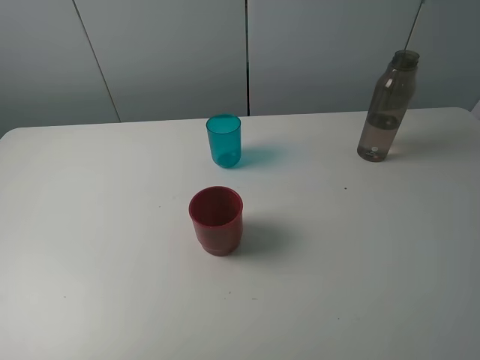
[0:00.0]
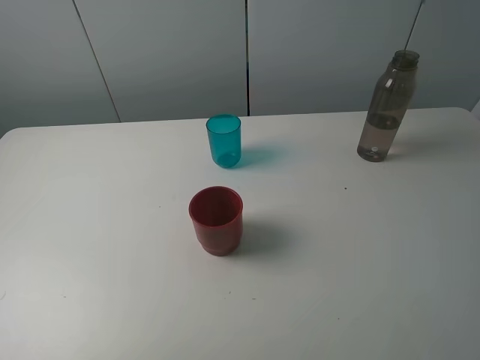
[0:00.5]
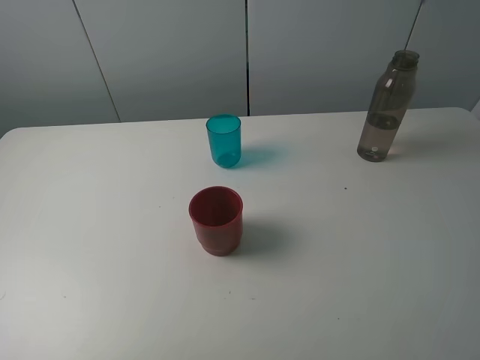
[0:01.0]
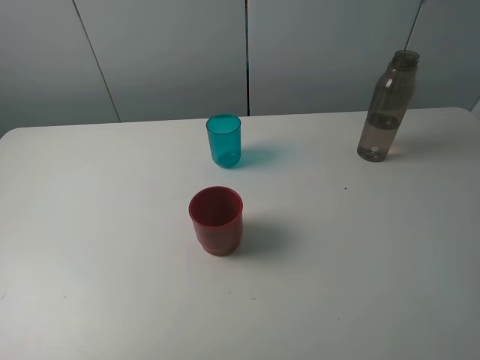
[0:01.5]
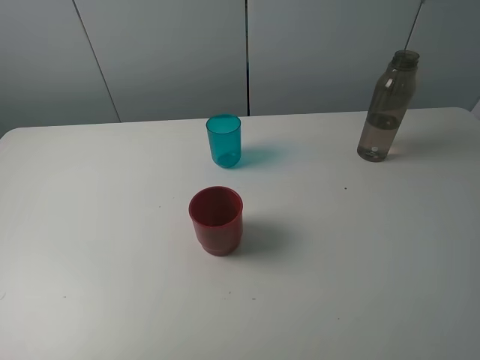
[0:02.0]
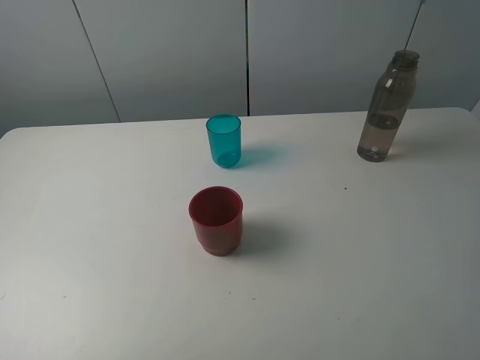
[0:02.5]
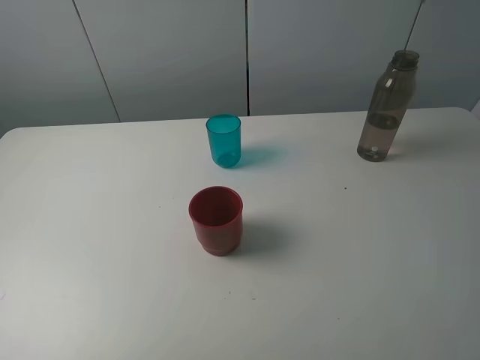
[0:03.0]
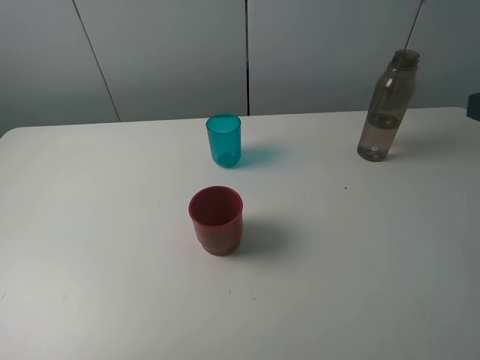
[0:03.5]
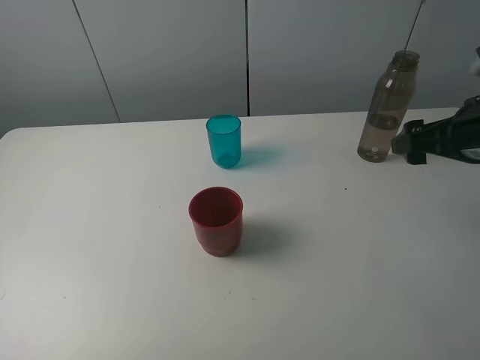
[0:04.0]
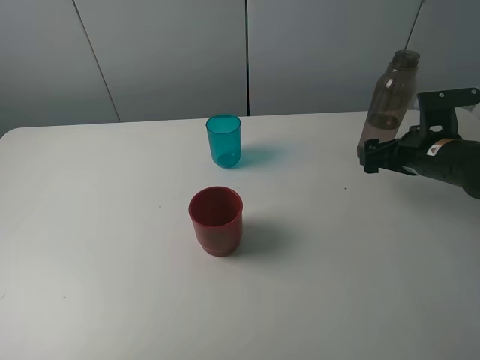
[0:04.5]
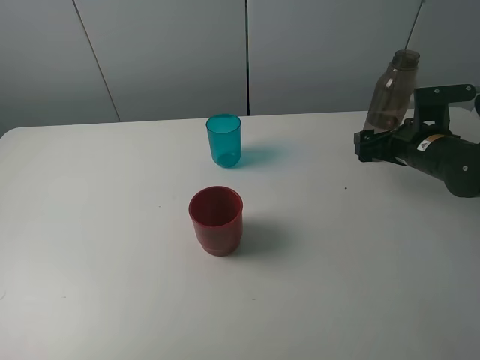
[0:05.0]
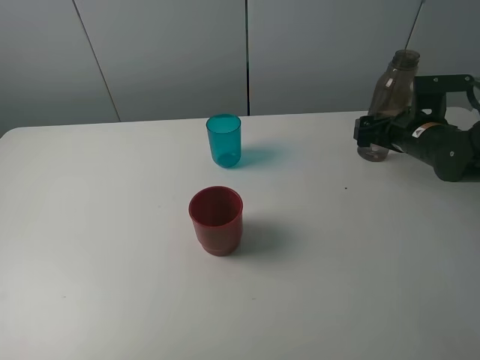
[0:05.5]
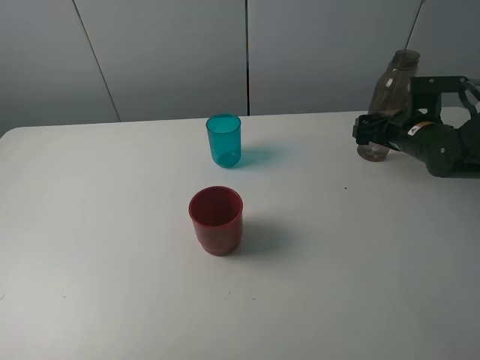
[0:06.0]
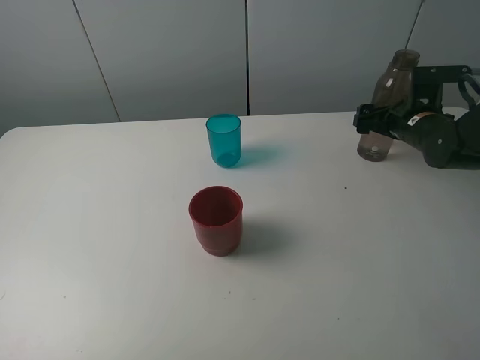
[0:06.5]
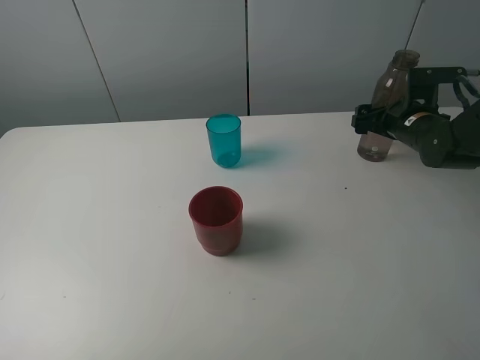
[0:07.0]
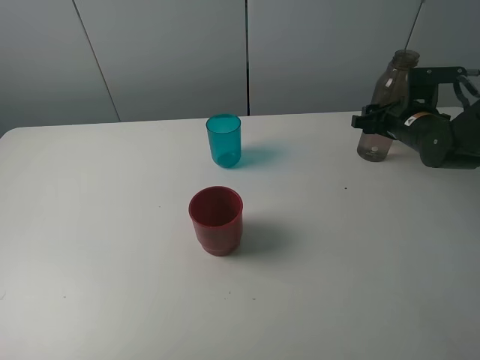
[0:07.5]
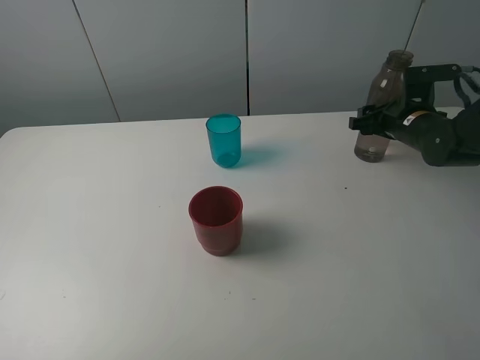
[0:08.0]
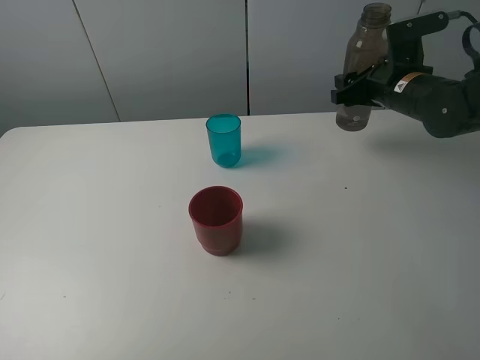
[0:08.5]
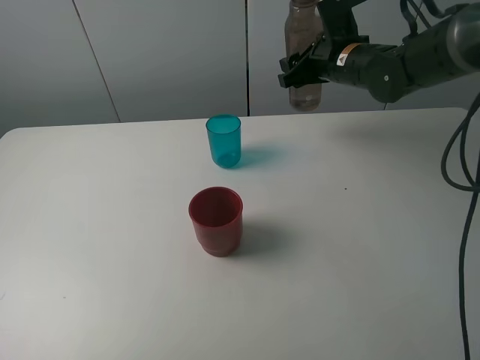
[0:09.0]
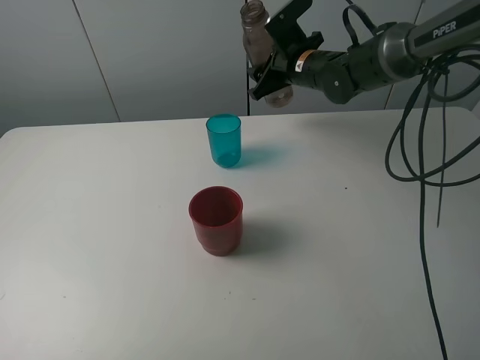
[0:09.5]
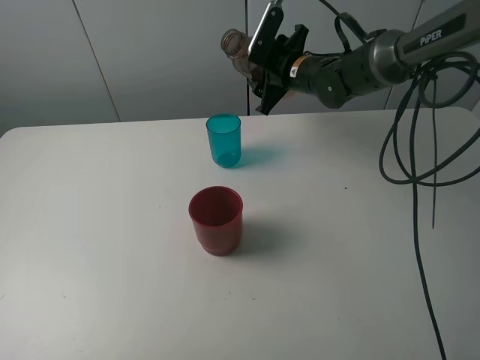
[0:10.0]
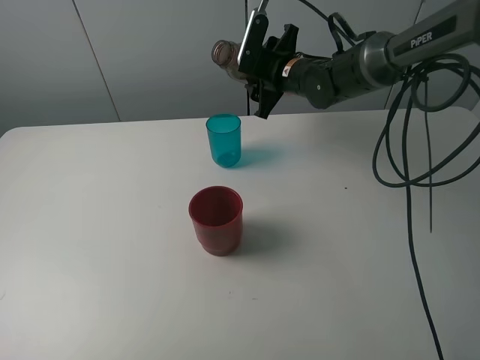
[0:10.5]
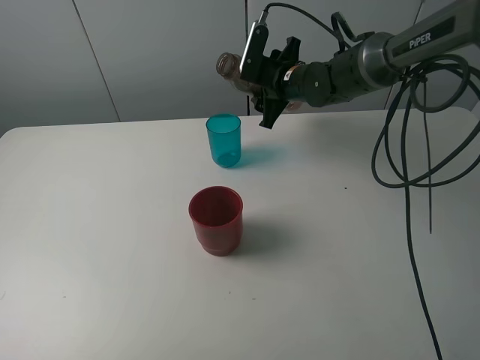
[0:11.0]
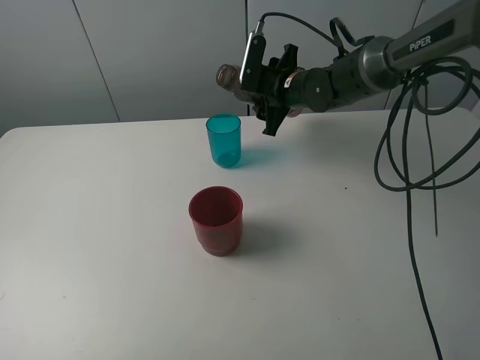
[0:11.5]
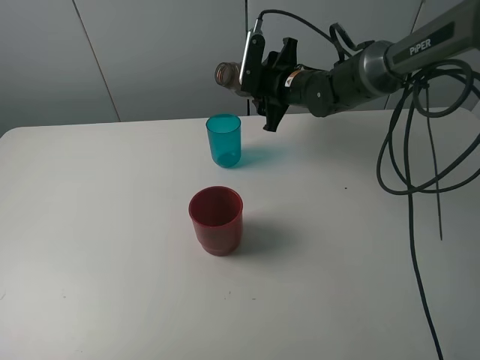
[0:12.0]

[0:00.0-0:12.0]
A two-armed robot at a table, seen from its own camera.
Task of the whole recording: pick up the bottle and pour water into the cup, then pick up the cup containing water and pour it into another cup.
Step, 0:00.0 to 0:07.5: Grasp the brown bottle with the right gripper.
0:00.0 to 0:02.0: The two grippers keep their place.
0:02.0 to 0:04.0: The right gripper heads forward, covering about 25 cm.
0:04.0 to 0:06.0: The right gripper travels forward and downward by some 15 cm.
0:06.0 to 0:08.0: The right gripper closes its fingers.
0:08.0 to 0:10.0: The right gripper is displaced to the left and forward by approximately 20 cm.
0:10.0 to 0:12.0: The grippers stay close to where they were, moving slightly.

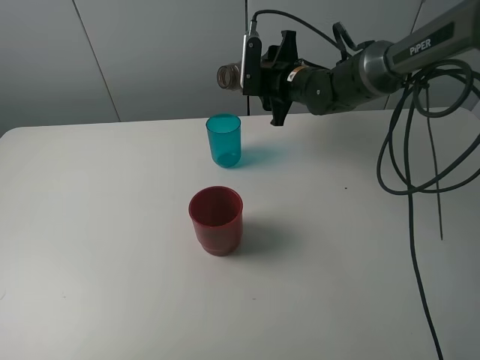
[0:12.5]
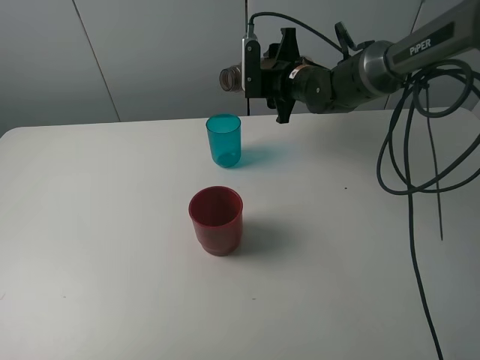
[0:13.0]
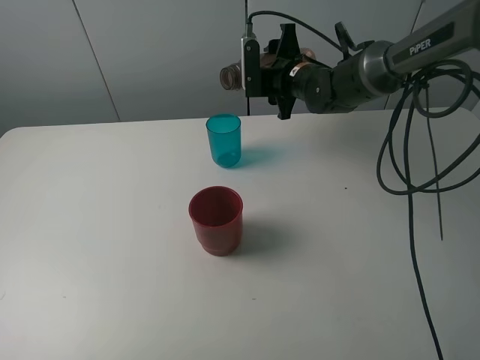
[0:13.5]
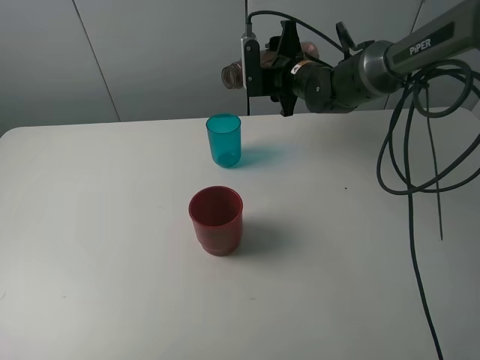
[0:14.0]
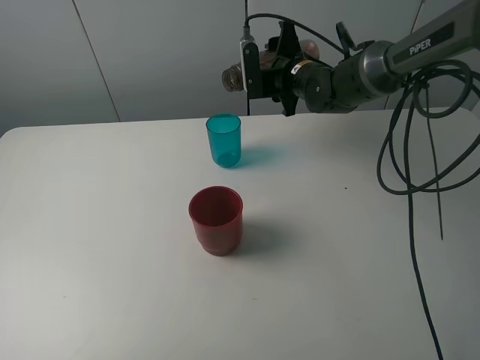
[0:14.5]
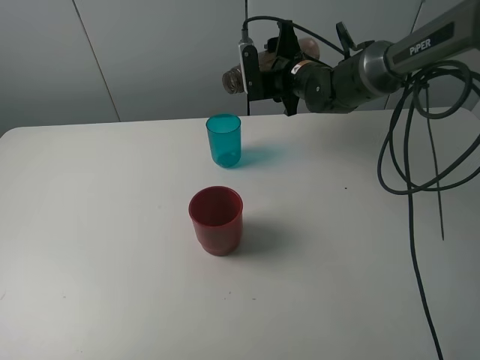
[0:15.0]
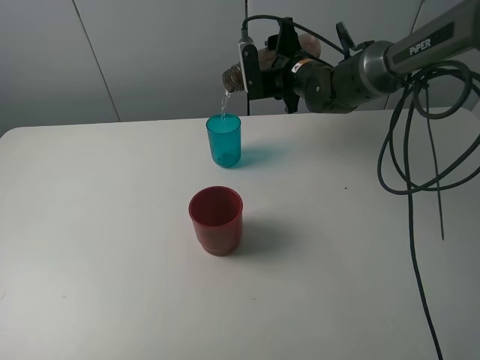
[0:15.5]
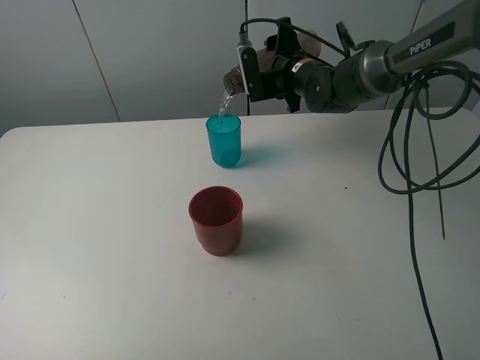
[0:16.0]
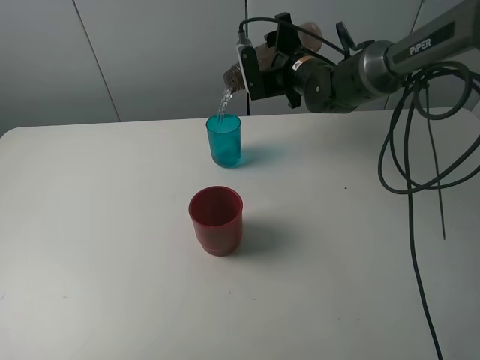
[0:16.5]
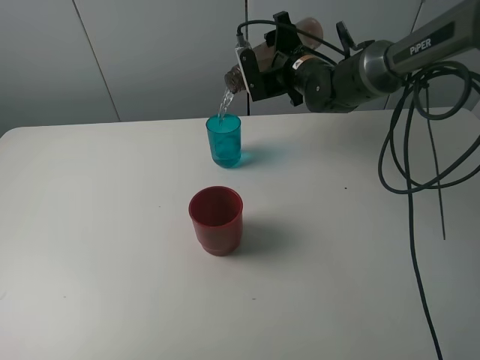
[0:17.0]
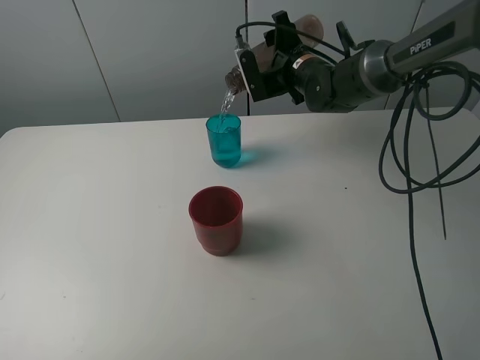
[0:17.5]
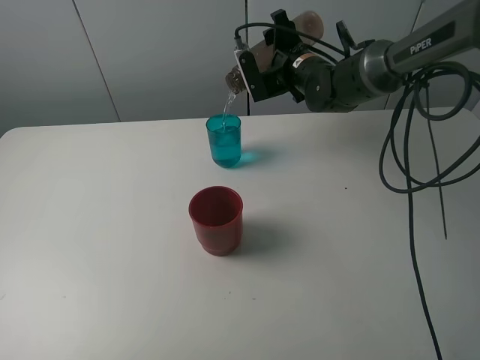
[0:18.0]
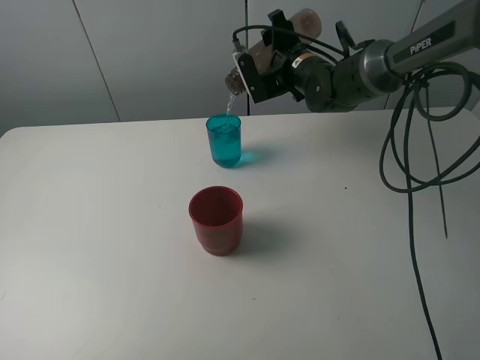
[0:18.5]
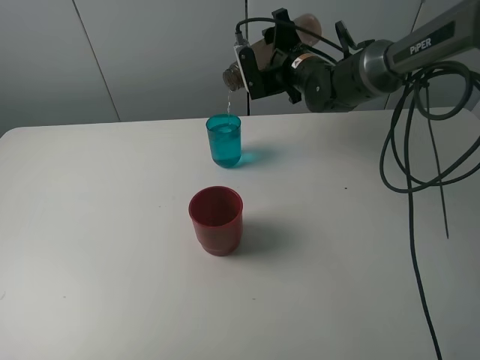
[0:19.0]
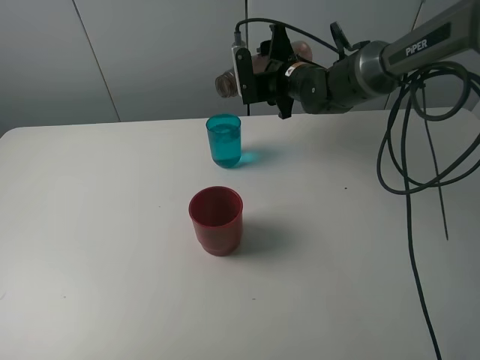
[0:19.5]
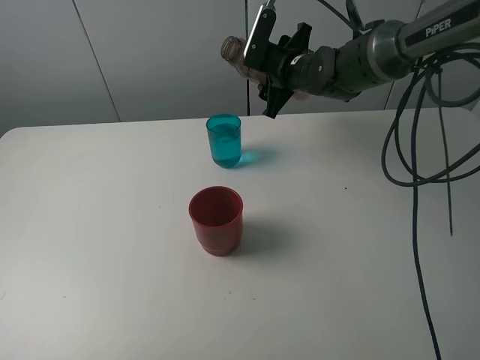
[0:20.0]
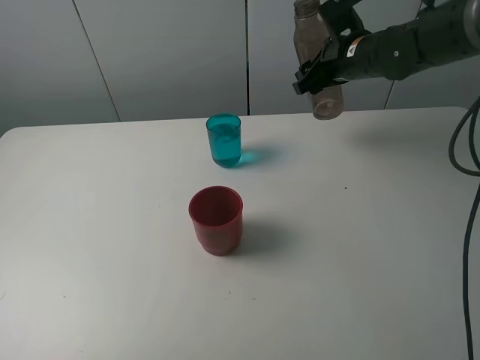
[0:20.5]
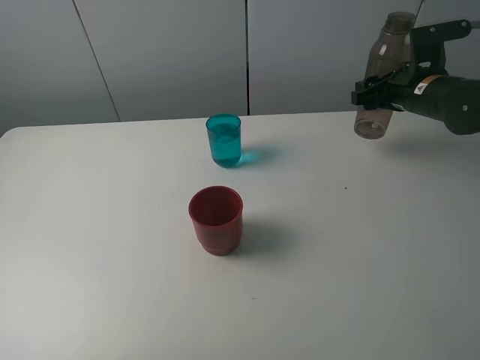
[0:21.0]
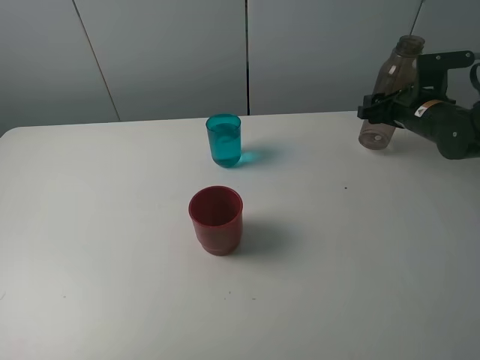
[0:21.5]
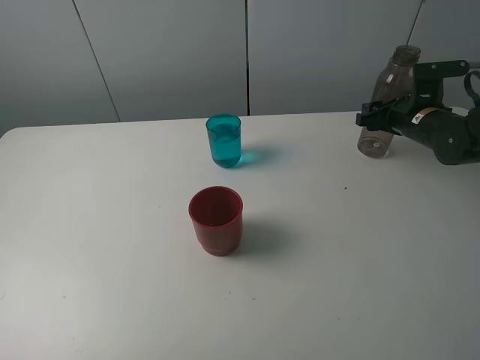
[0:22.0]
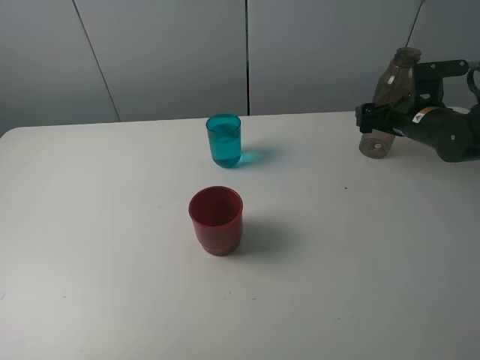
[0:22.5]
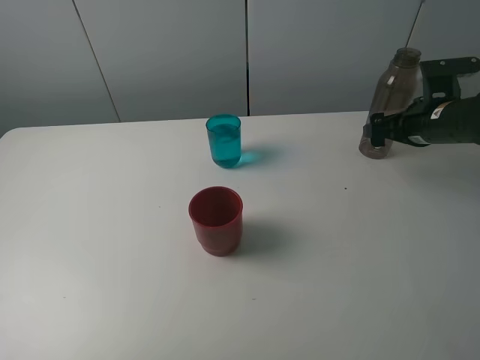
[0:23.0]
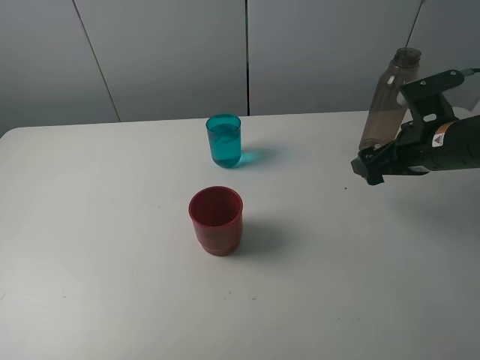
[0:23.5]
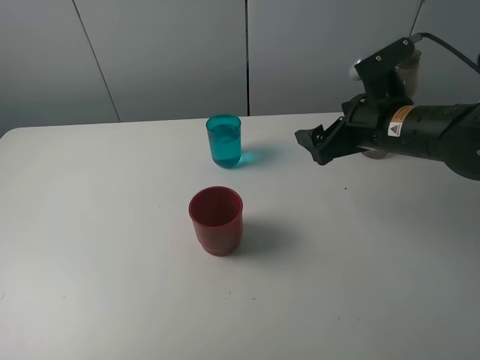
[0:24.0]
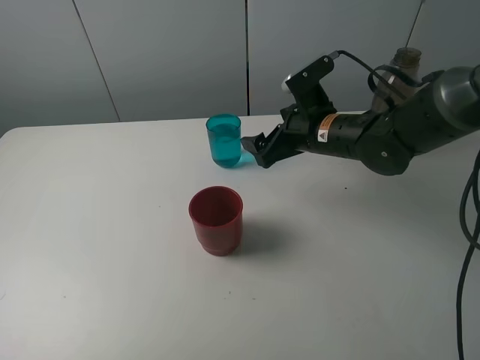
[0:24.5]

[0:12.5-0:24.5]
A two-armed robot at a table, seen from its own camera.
Task of the whole recording: pick up the bottle and pour water into the cup, then pick up the cup containing water and pour it into another cup.
Step, 0:12.5 to 0:19.0: Pour water from brown bottle to blue cup with the right gripper.
Step, 0:19.5 to 0:22.5: Place the brown bottle with the right gripper.
0:12.5 to 0:14.5: There are only small adjustments of the grippers.
0:14.5 to 0:18.5: There are only small adjustments of the grippers.
0:18.5 to 0:20.5: The right gripper is displaced to the right by some 10 cm.
0:20.5 to 0:22.5: The right gripper shifts about 15 cm to the right and downward, and opens.
0:22.5 to 0:24.5: The right gripper shifts some 20 cm to the left.

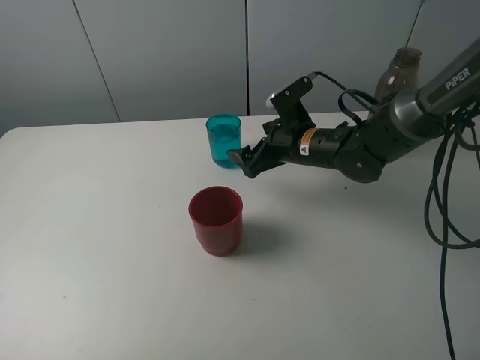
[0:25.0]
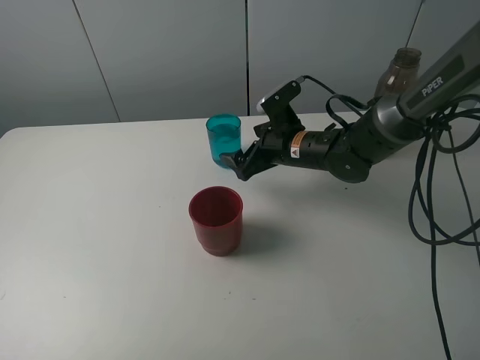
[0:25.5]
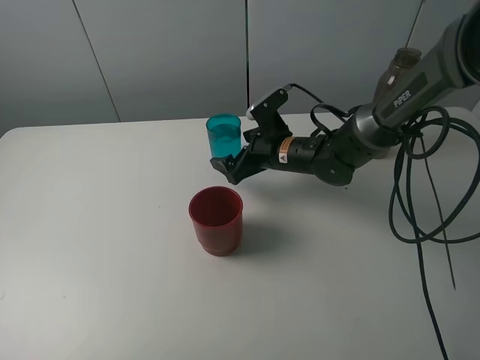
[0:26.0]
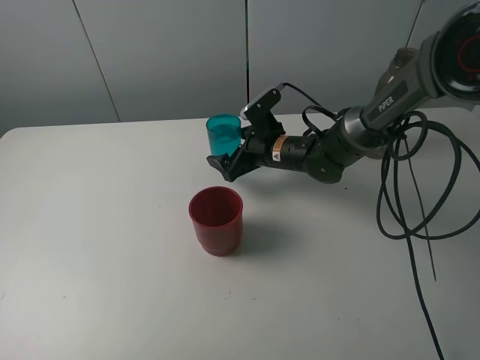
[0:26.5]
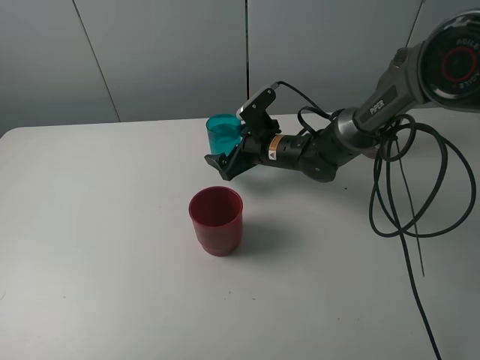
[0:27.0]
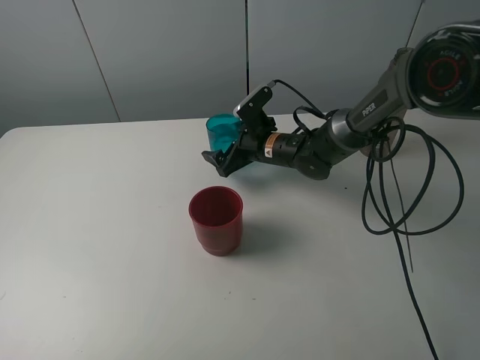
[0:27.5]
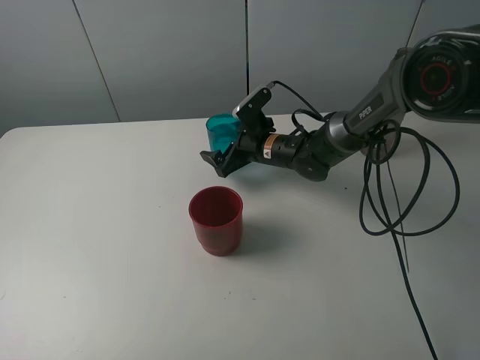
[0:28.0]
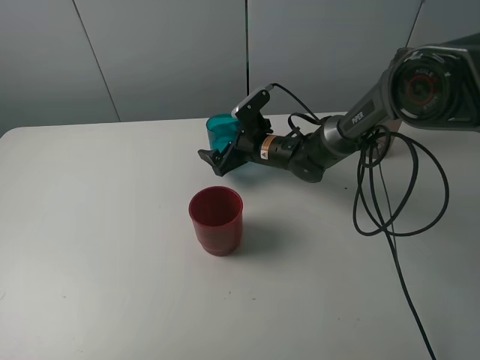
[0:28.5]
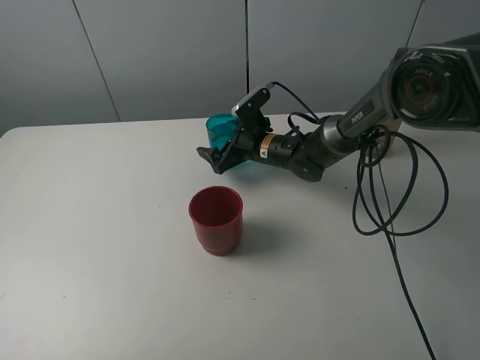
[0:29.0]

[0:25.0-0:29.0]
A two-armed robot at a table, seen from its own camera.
Task of the whole recording: pick up the bottle and pour water into the cup, then pick up the cup containing water and pour it into another cup.
0:25.0 to 0:27.0: The right gripper shifts by about 10 cm.
0:27.0 to 0:29.0: The grippers make only small movements.
